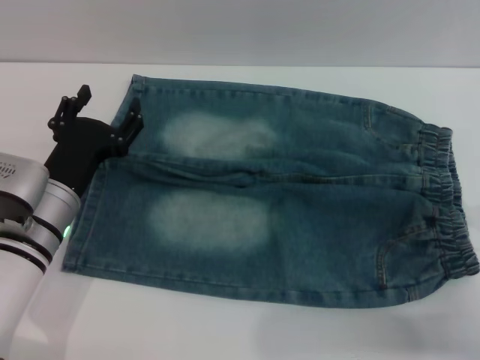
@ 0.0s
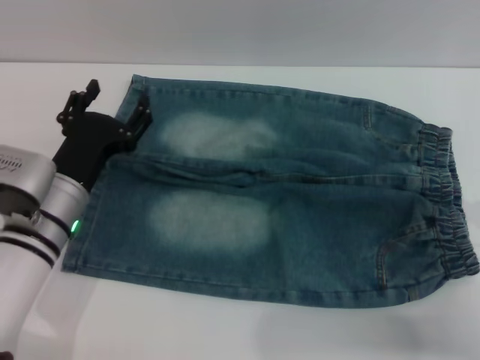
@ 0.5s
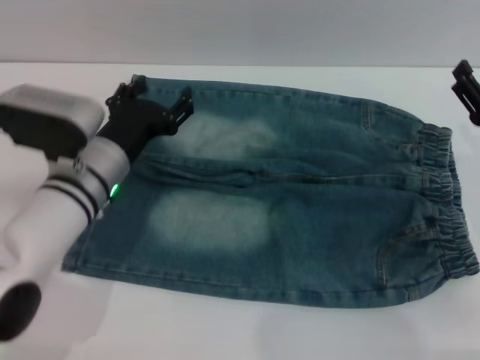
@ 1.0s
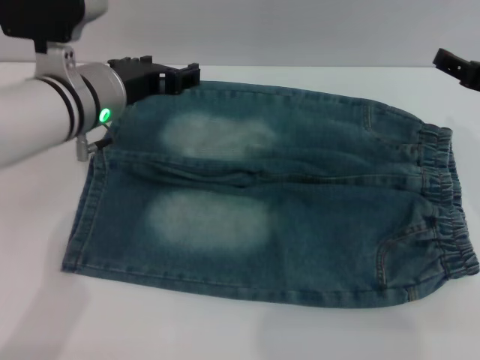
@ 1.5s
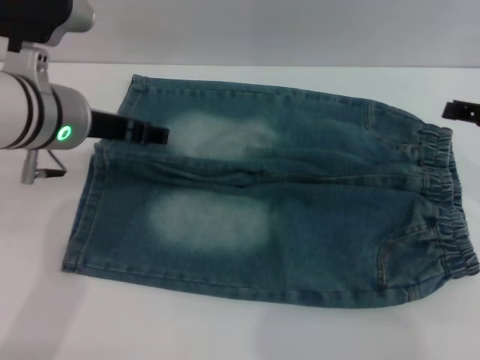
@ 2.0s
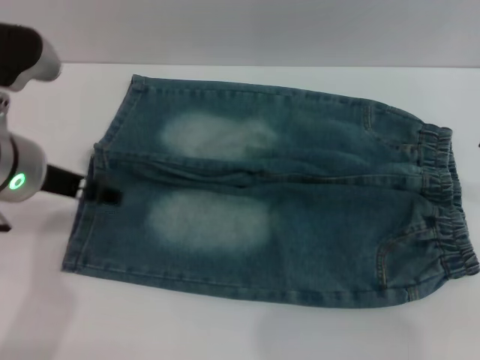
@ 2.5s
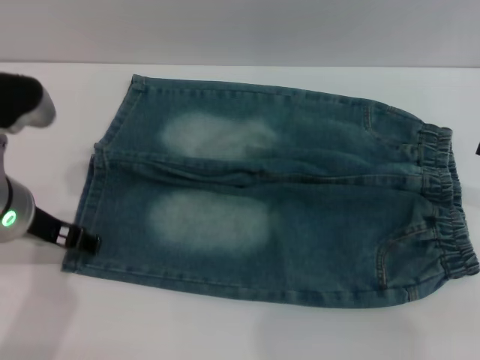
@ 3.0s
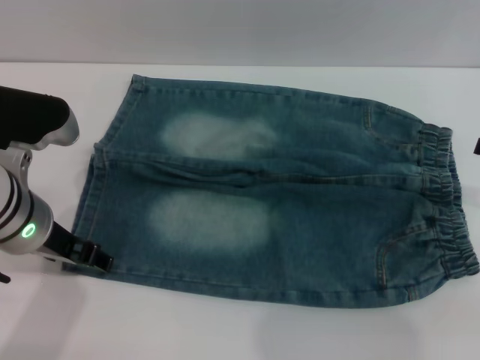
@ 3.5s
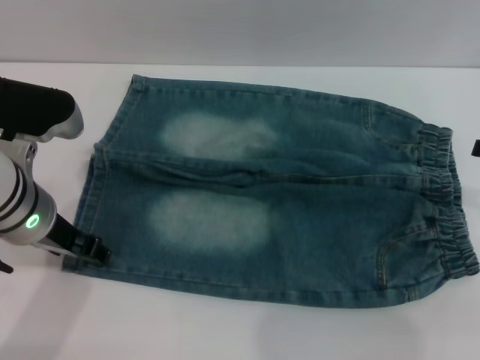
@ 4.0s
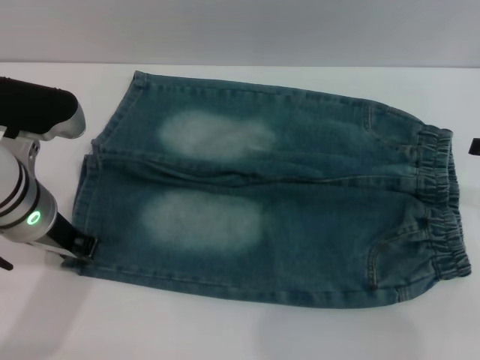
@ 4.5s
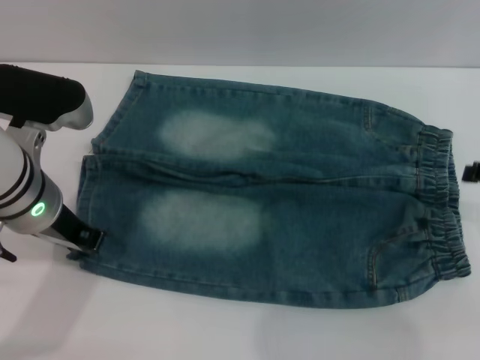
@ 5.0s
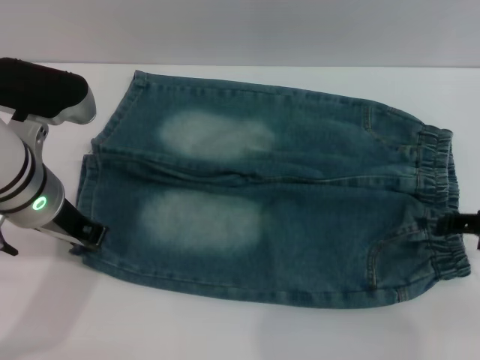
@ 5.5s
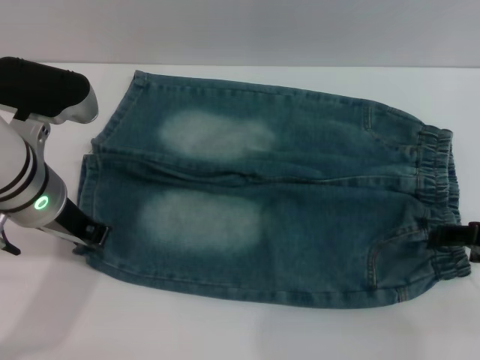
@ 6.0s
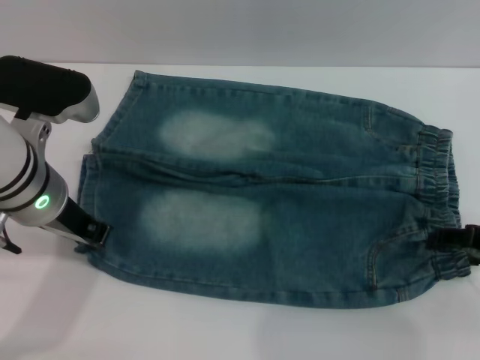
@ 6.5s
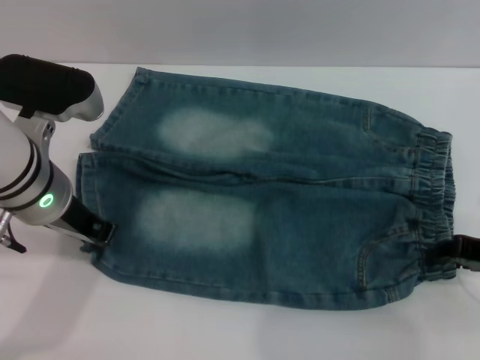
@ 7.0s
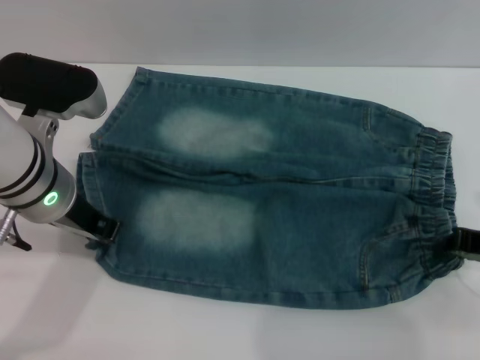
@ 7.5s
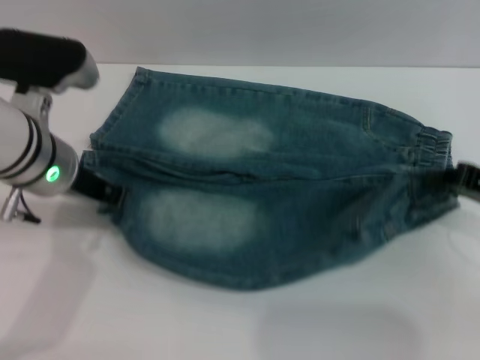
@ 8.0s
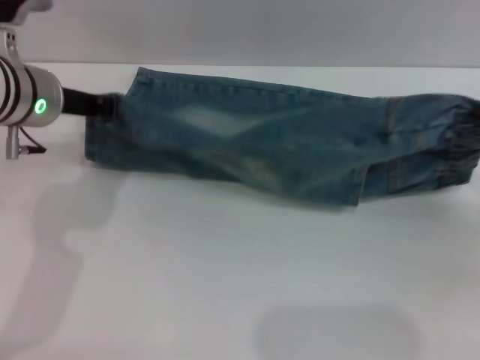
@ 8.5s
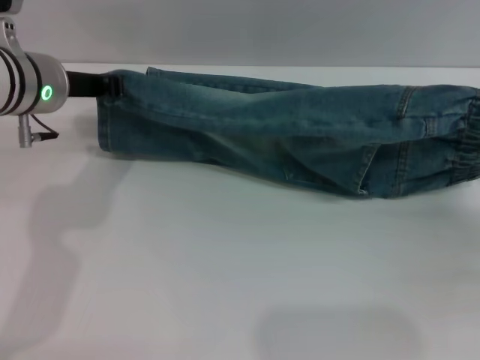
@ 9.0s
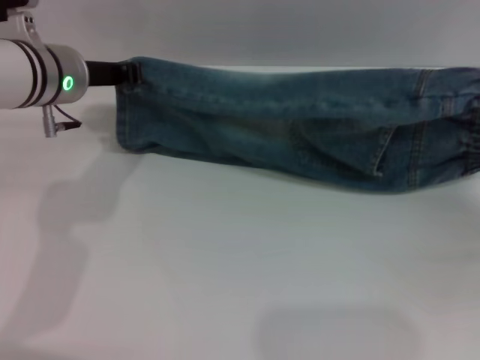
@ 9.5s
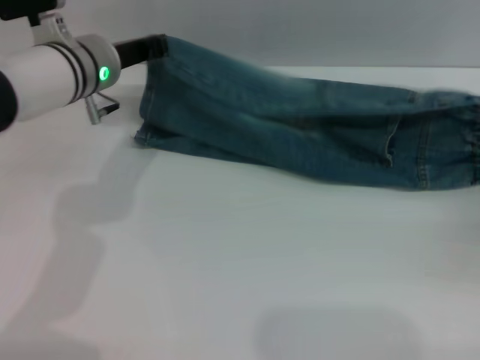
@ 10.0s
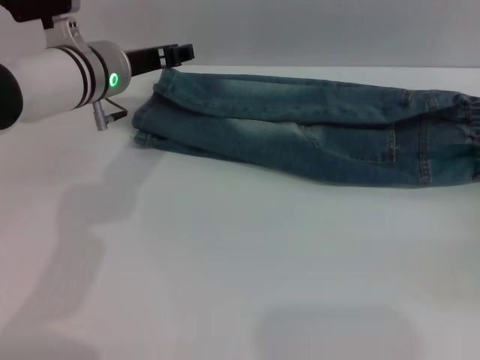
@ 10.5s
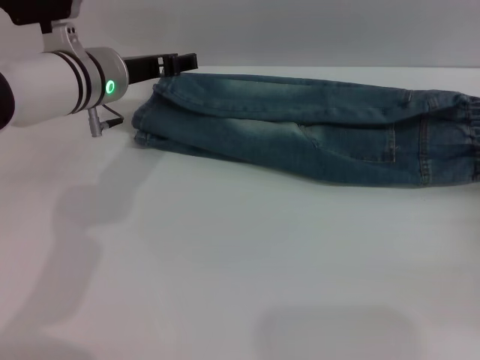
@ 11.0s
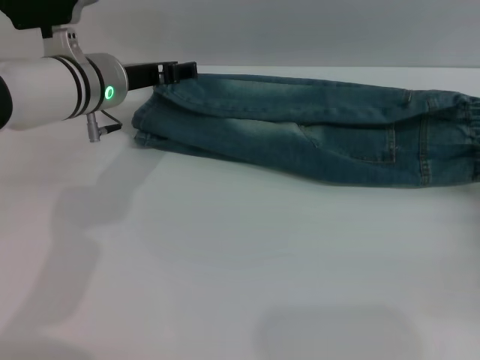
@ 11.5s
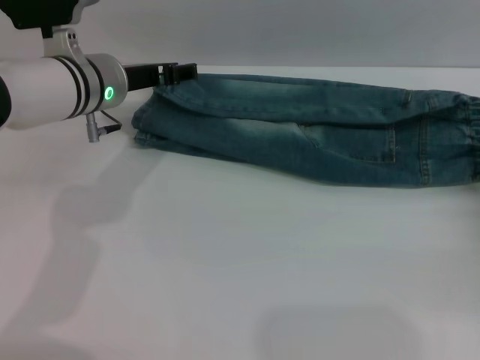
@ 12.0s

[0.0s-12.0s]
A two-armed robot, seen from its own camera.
Step, 0.0s to 10.0s: Fold the bottom of the pants upward with both grippers.
0.0s to 2.0s: The left gripper travels upward by approximately 15 cm. Meanwhile the right gripper moves upward and forward, roughly 15 cm.
2.0s to 4.0s: The left gripper moves some 5 cm.
4.0s to 6.0s: The left gripper closes; the right gripper is displaced downward by approximately 5 cm.
6.0s to 8.0s: The right gripper closes its fingers.
8.0s to 10.0s: The right gripper goes approximately 10 cm to the right and downward. The left gripper shifts roughly 10 cm forward.
10.0s to 12.0s: The left gripper opens. The right gripper moves roughly 5 cm, and opens its fingers.

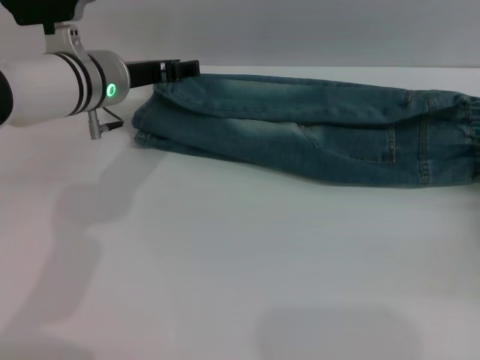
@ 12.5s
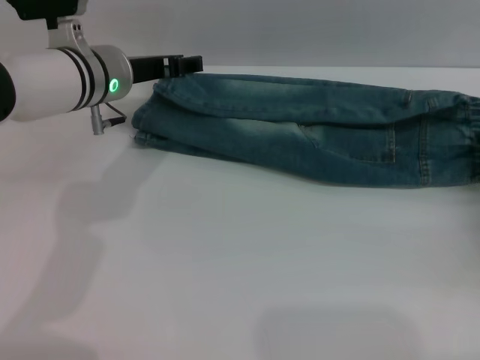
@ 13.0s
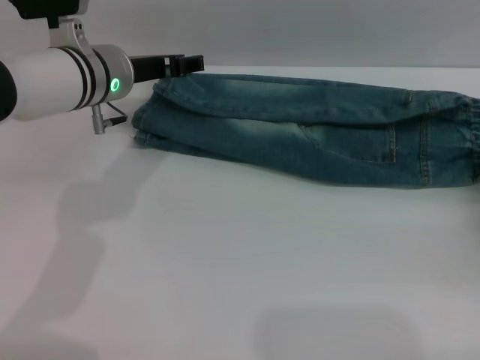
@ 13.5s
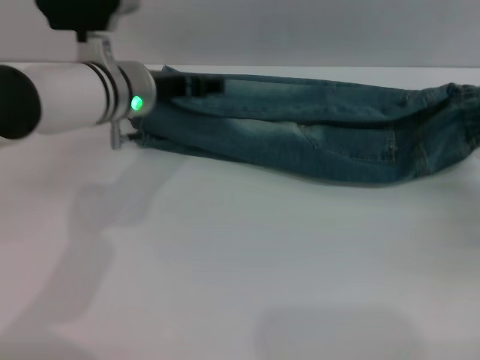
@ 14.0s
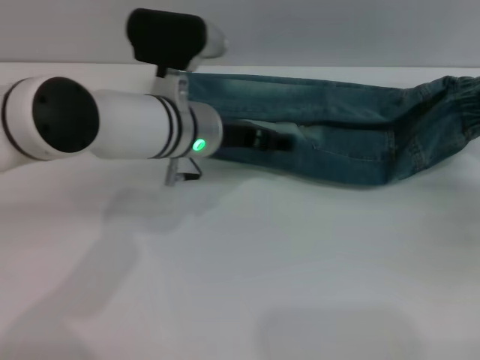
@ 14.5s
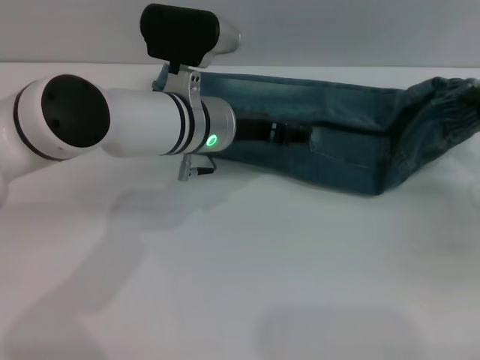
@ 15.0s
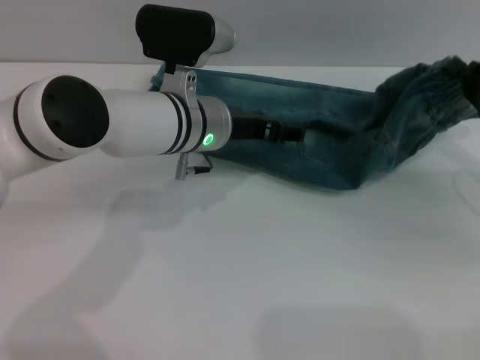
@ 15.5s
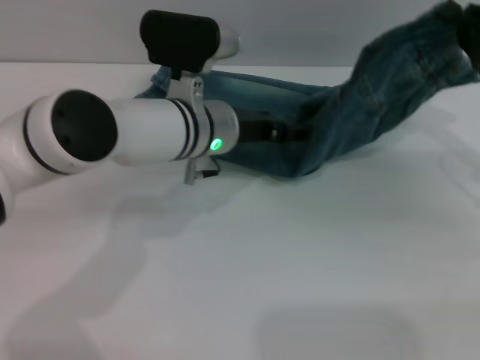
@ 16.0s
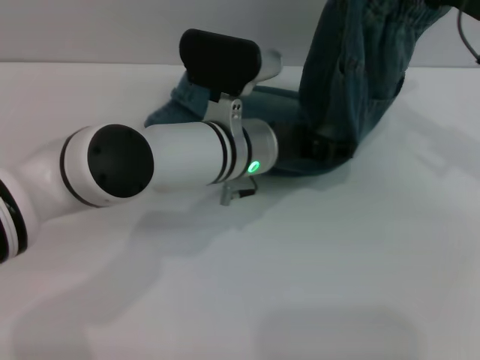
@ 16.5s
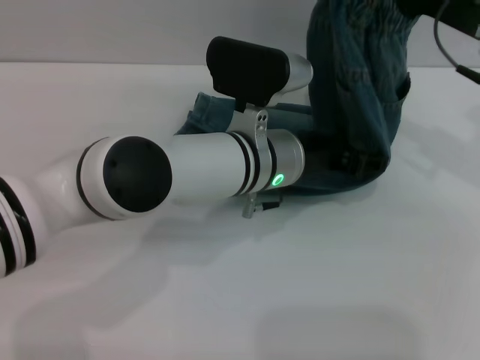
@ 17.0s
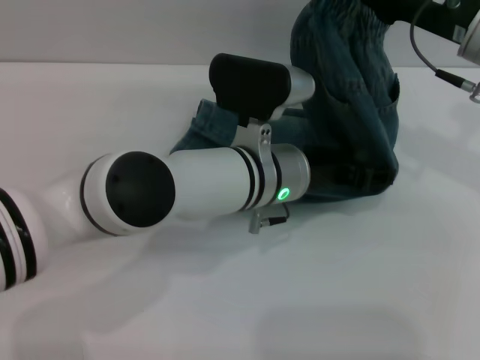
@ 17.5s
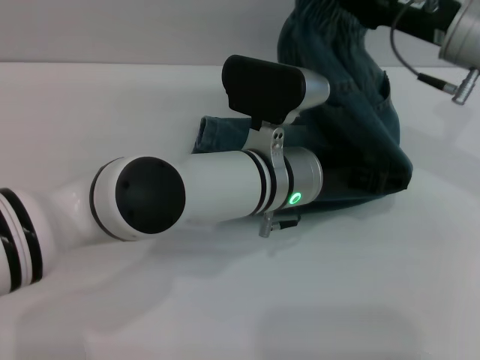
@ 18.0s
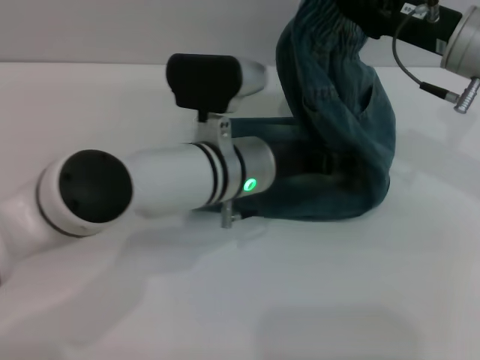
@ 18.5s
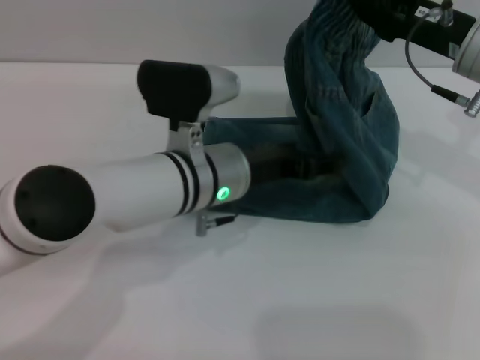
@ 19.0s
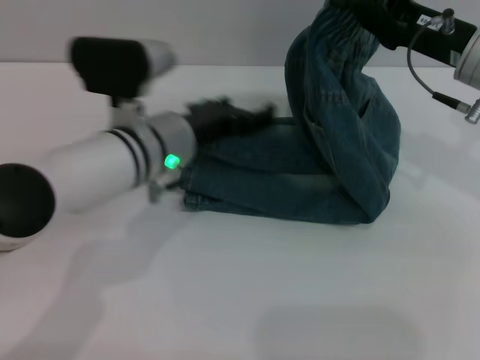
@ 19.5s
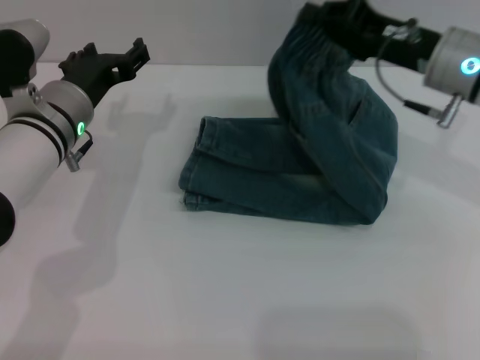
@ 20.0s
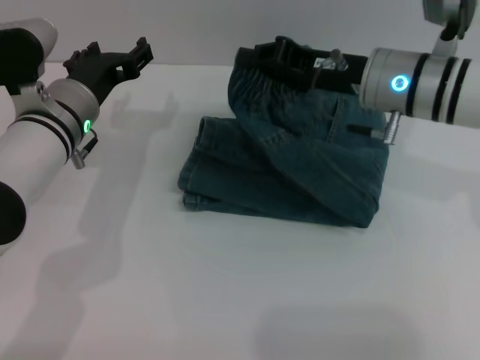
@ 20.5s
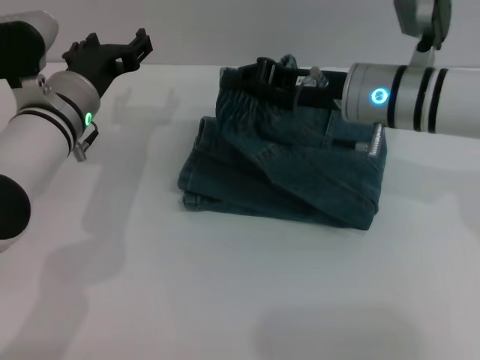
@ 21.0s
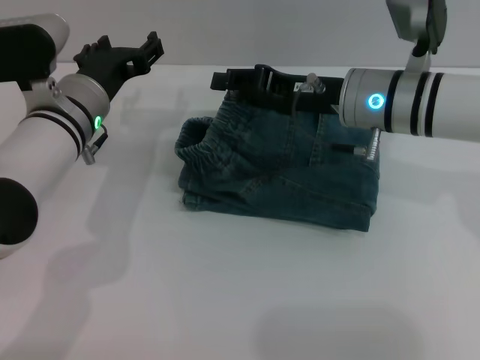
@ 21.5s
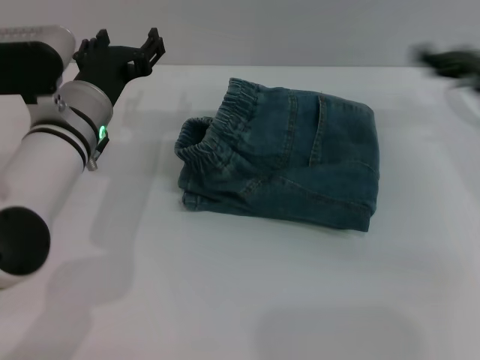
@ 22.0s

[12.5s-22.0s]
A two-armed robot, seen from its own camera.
Step, 12.5s to 21.5s: Fold the pants from right to left with the right gripper.
12.5s to 14.5s: The right gripper moves roughly 5 cm, and closes up. Meanwhile the left gripper goes approximately 10 cm to the right.
14.5s to 16.5s: The left gripper is displaced to the right by some 5 cm. Meanwhile the right gripper goes roughly 15 cm upward, to the left and forward.
16.5s to 18.0s: The right gripper travels to the left by approximately 5 cm.
18.0s to 20.0s: The left gripper goes about 20 cm to the left.
20.0s to 22.0s: The right gripper heads to the right, covering some 5 cm, and opens its fingers.

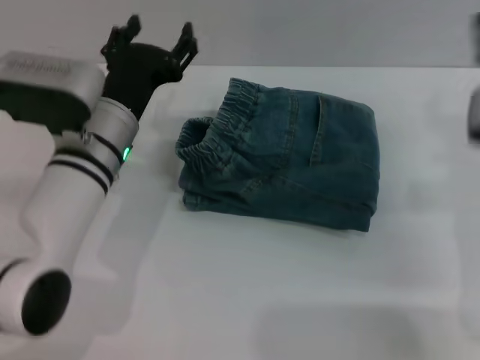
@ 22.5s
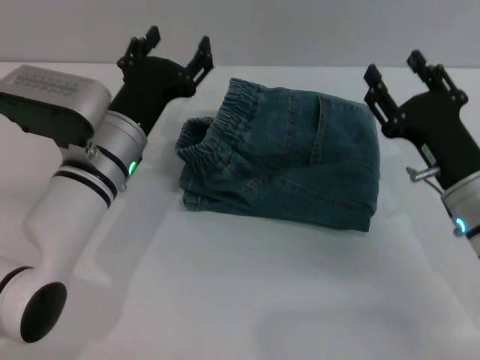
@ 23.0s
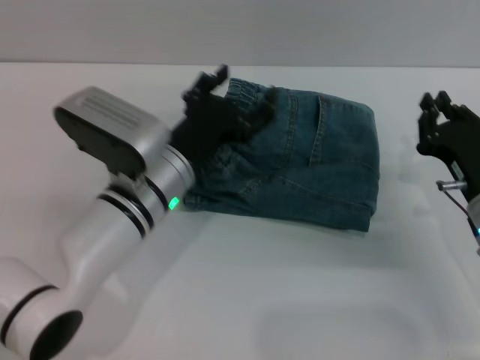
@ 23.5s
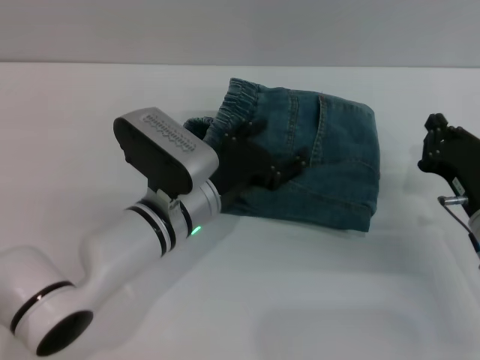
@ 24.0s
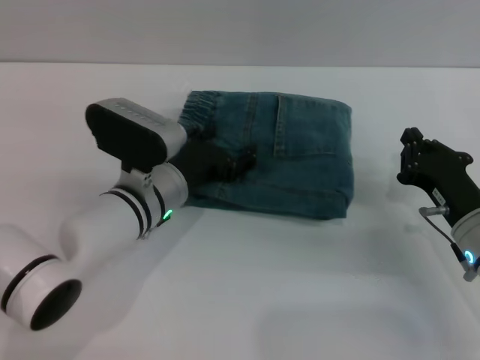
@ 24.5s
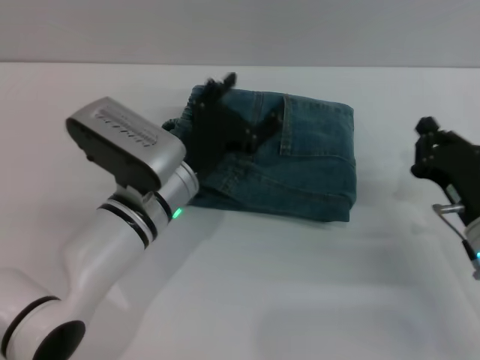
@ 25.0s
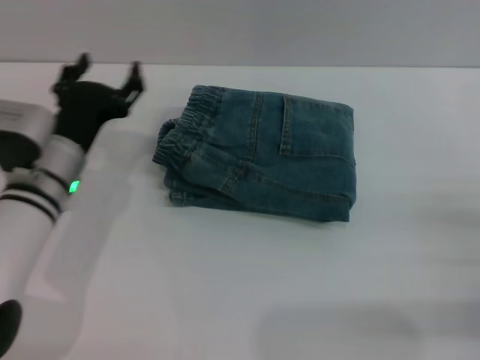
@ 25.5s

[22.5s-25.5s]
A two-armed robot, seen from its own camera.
22.5s to 24.0s: The right gripper moves downward and backward, some 10 cm, and closes. The left gripper shifts roughly 5 cm to the right.
24.0s to 25.5s: The left gripper shifts about 10 cm to the left; the right gripper goes roughly 10 cm to the right and backward.

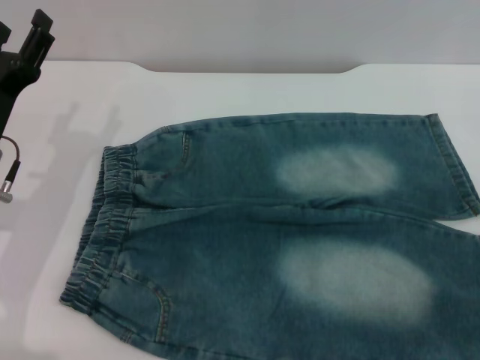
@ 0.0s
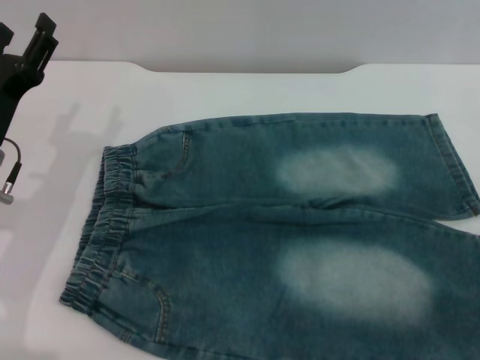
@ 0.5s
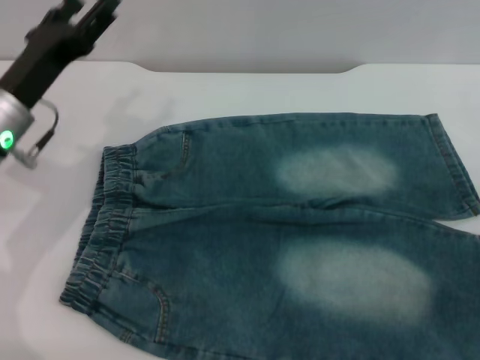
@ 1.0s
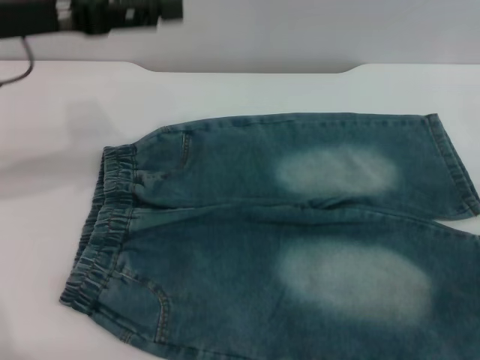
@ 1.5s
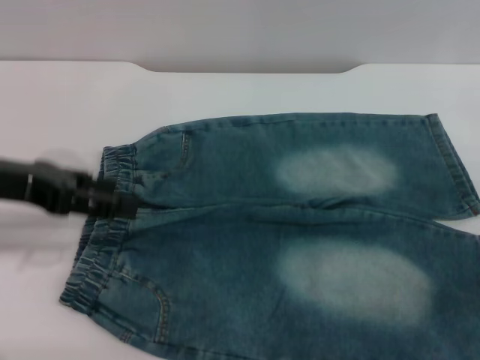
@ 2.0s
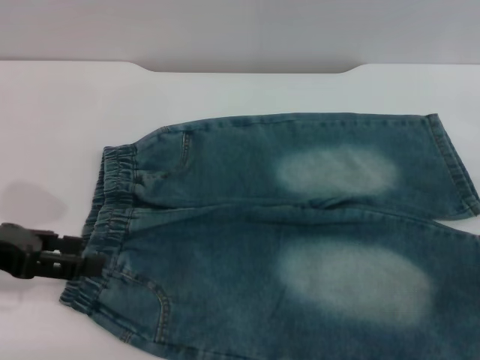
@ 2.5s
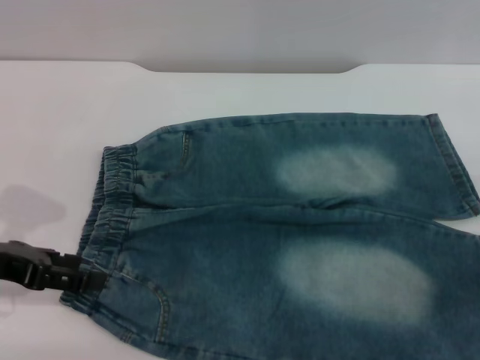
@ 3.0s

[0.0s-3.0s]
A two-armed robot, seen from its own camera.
0.0s to 1.5s: The left gripper shifts approximately 15 cm upward.
1.5s to 3.0s: The left gripper heads downward, backward and to the left, covering about 15 cm.
